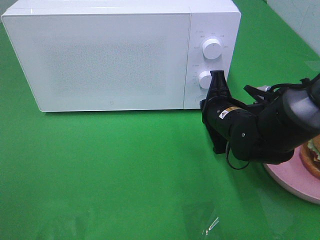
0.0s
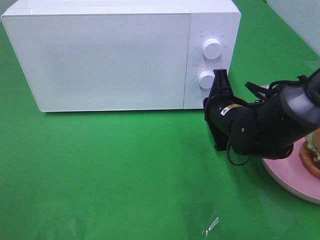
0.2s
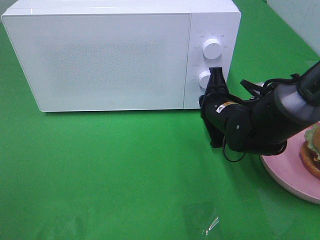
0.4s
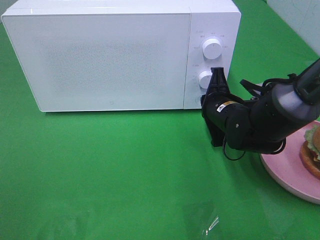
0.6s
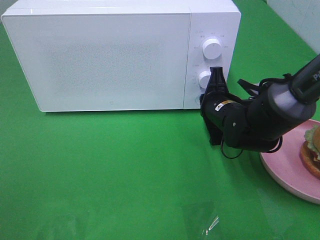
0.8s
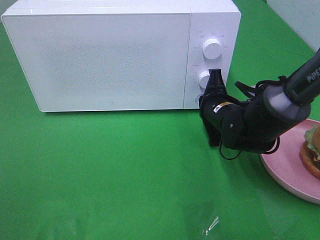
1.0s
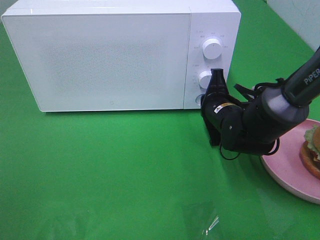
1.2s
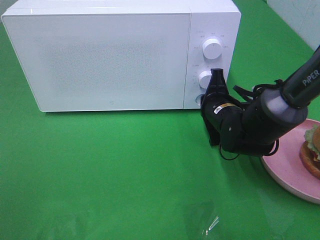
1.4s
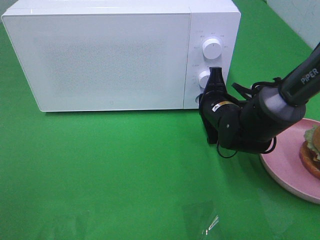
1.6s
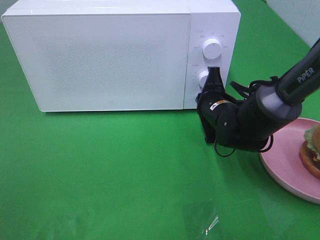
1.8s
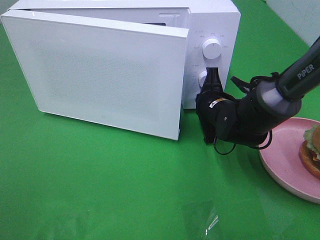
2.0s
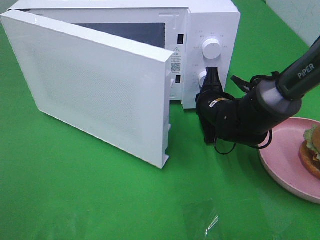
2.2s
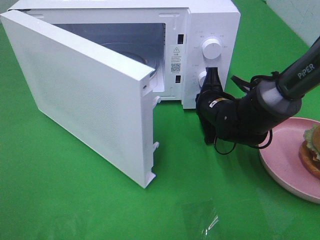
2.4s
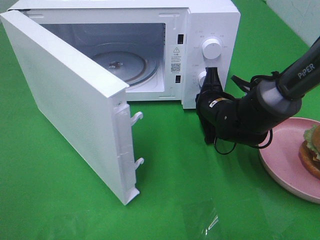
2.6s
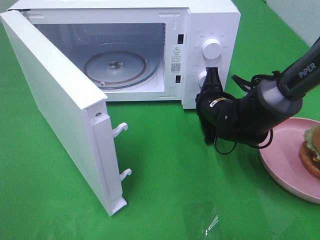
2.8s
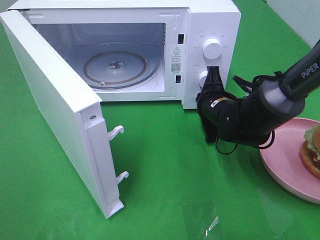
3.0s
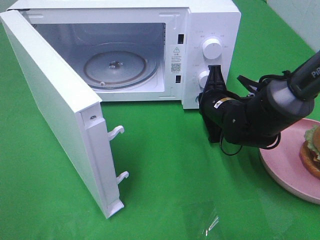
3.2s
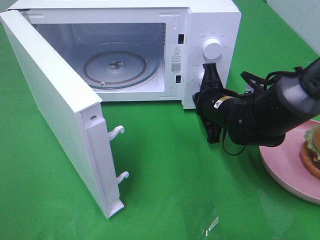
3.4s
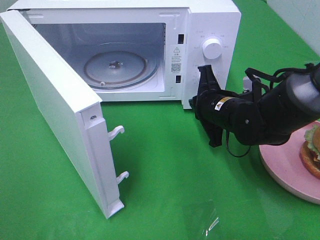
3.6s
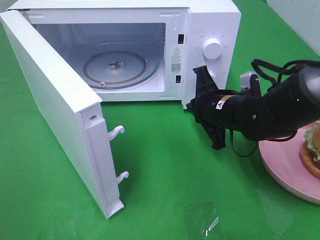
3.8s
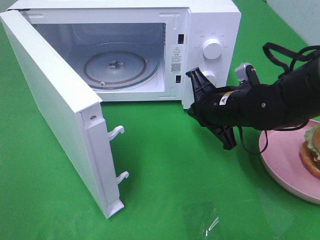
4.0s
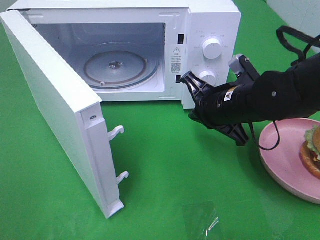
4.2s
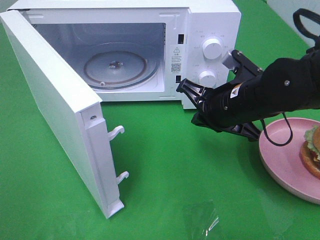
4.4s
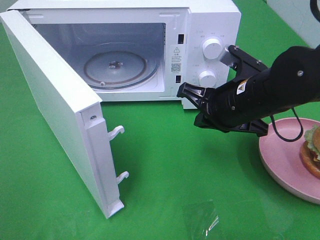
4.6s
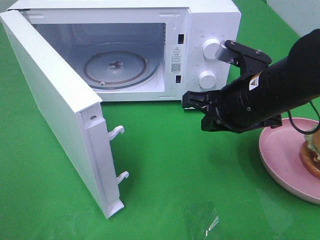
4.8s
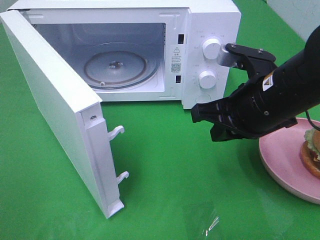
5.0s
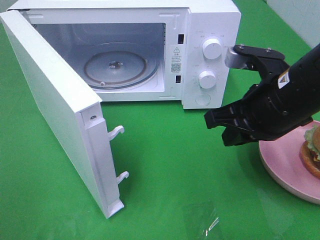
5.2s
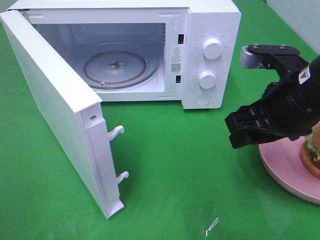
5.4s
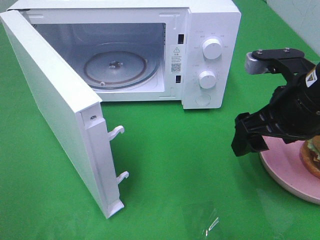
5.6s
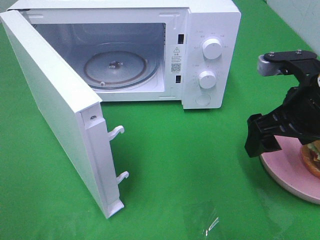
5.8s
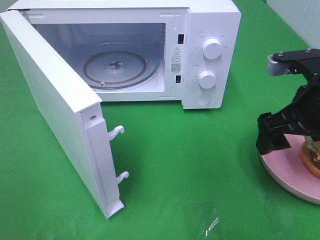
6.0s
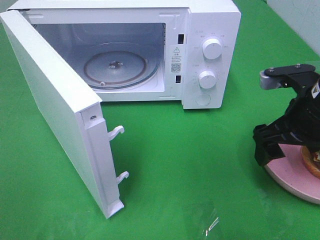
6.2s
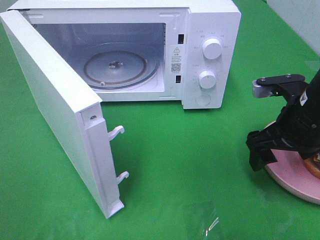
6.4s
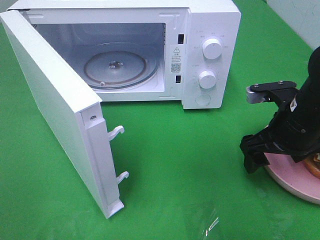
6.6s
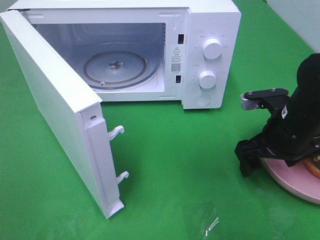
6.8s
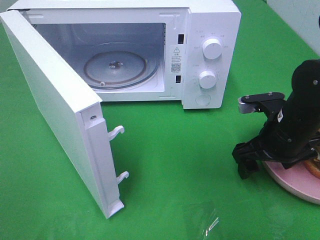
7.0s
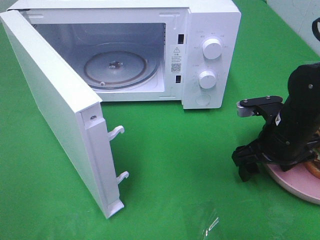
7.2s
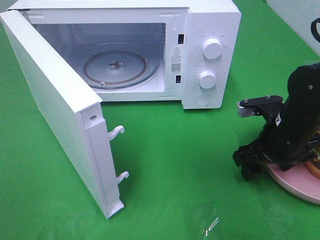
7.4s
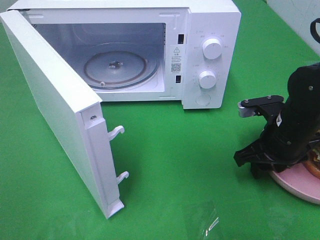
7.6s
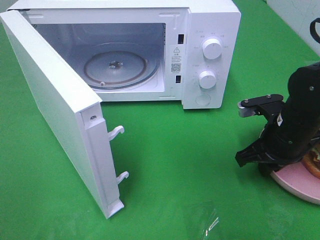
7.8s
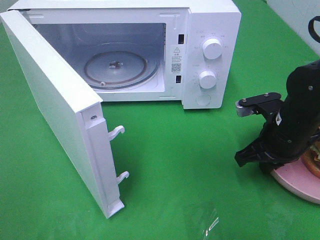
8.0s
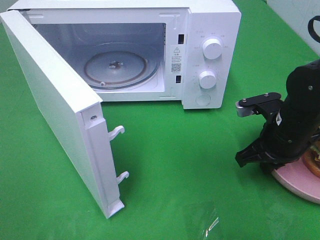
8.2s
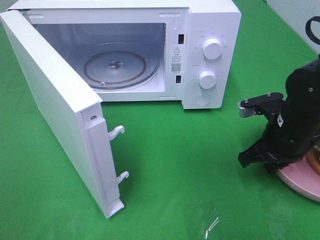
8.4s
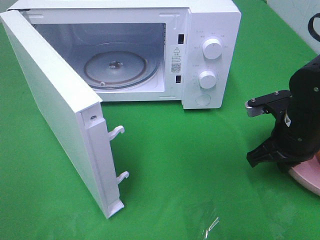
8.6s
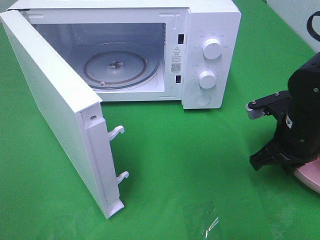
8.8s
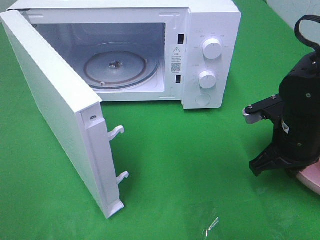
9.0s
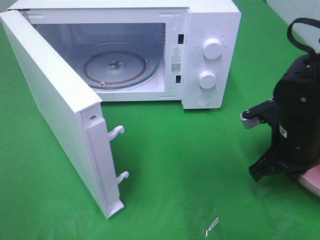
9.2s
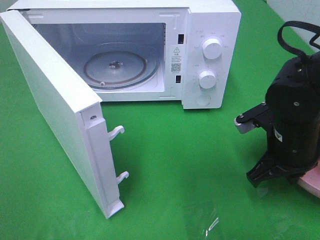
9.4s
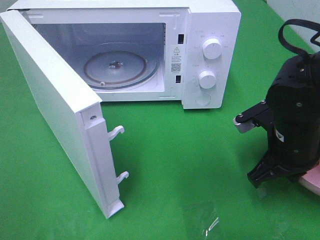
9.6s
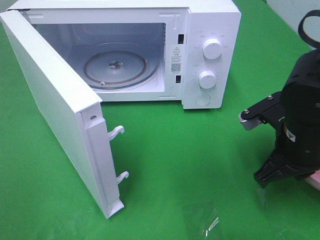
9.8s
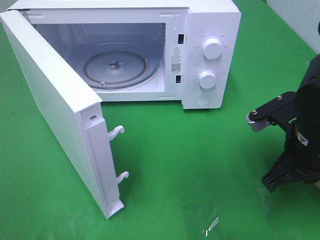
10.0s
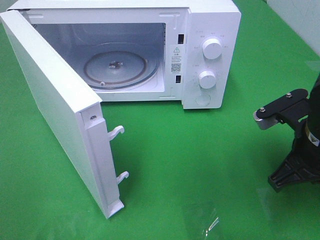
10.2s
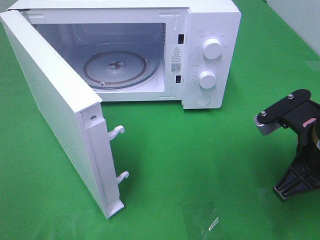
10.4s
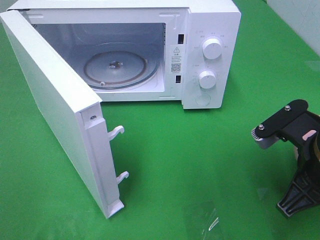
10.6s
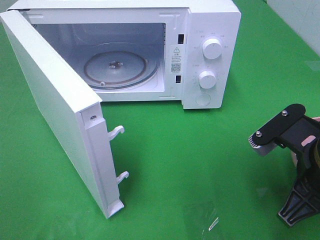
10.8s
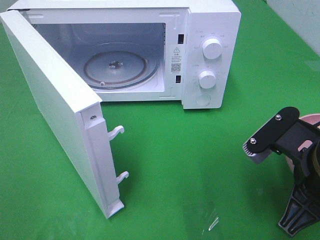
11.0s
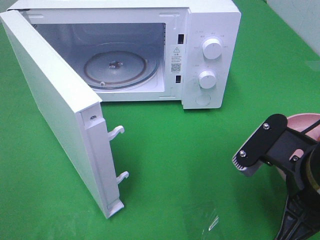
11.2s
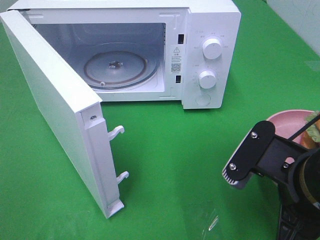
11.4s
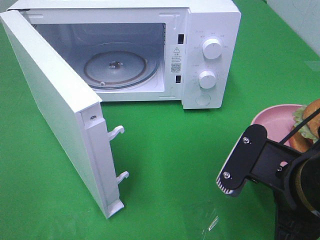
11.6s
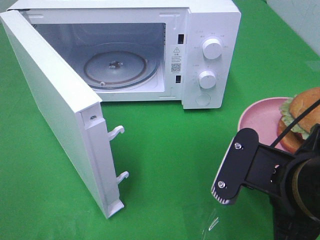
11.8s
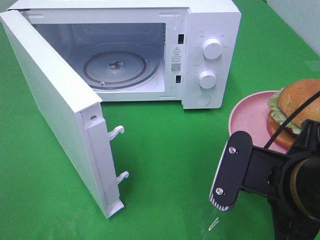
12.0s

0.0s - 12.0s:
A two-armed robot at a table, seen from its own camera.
Task of the whole recording: Heat the burger.
Step, 0.0s - 3.2s: Right hand: press the switch.
Step, 3.4s - 8.0s: Right hand: grab the plate with the hamburger.
0.0s - 1.6s: The grippers make only small movements.
3.0s - 4.4s: The right gripper shifts approximately 10 cm upward and backward.
4.4s - 6.0s: The right gripper moves to the right, about 10 cm, and opens up.
6.0s - 7.6s: The right gripper heads downward, covering roughly 10 cm, and closes its fingers.
7.6s - 9.0s: The right gripper closes up.
9.0s - 10.4s: The right gripper goes roughly 10 cm backward and upward.
10.4s - 12.0s: The right gripper is displaced backward and to the left by roughly 10 cm.

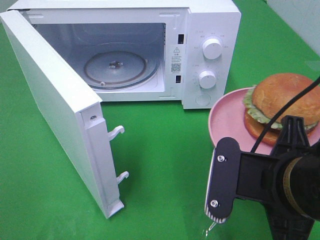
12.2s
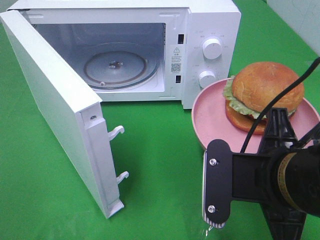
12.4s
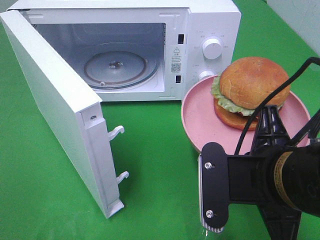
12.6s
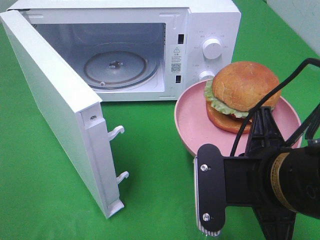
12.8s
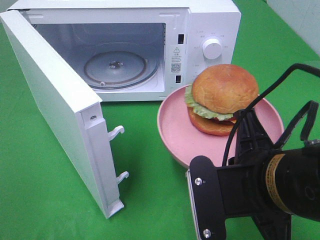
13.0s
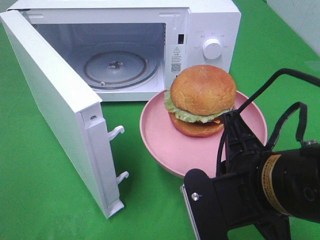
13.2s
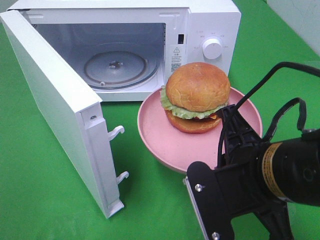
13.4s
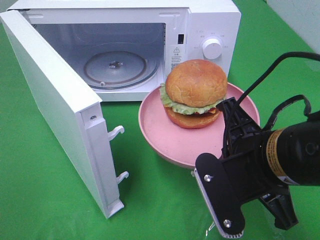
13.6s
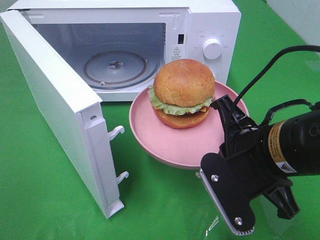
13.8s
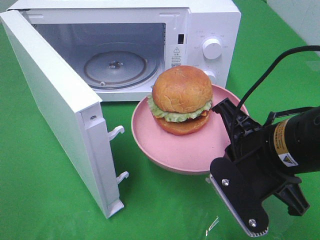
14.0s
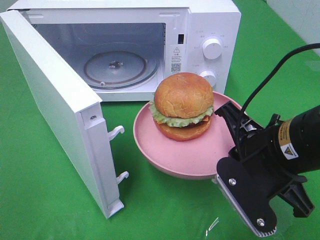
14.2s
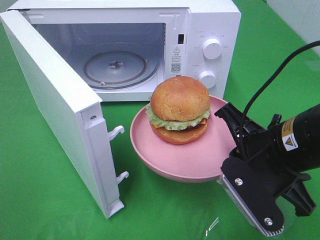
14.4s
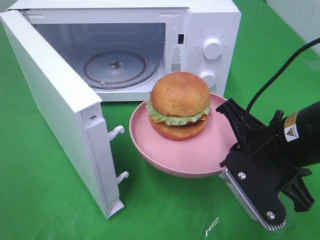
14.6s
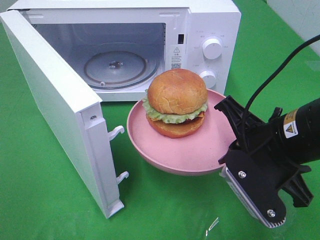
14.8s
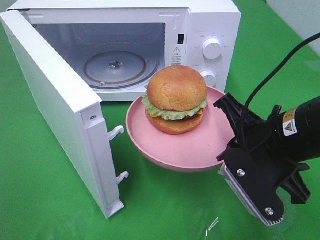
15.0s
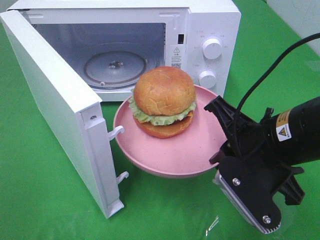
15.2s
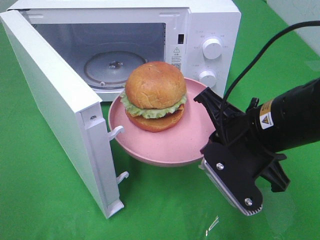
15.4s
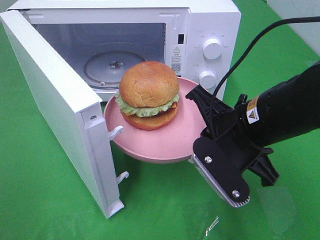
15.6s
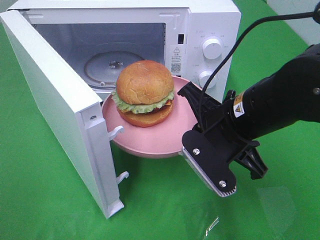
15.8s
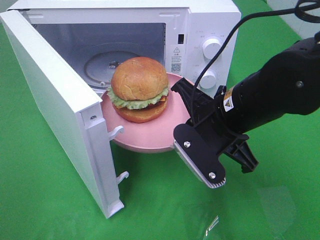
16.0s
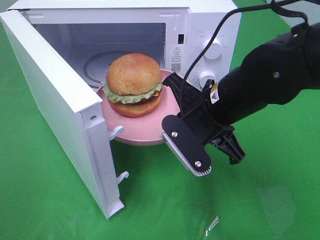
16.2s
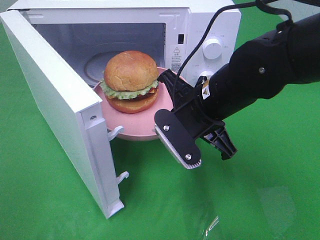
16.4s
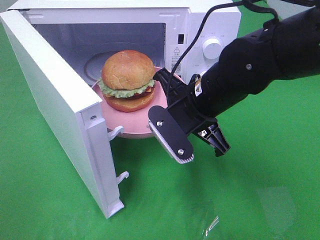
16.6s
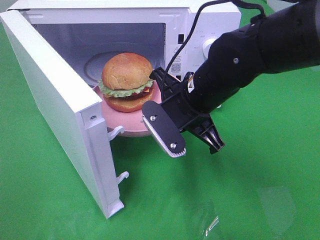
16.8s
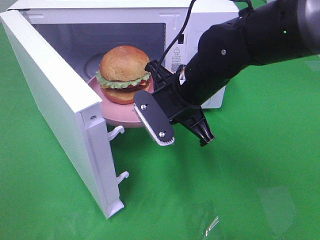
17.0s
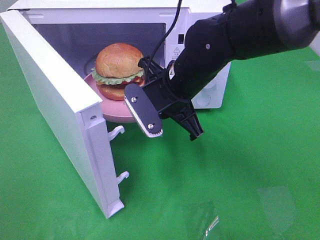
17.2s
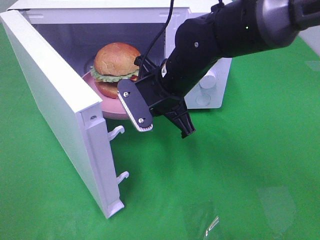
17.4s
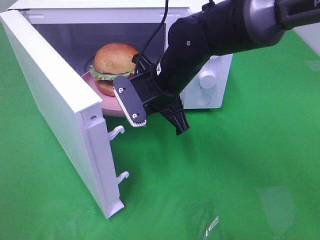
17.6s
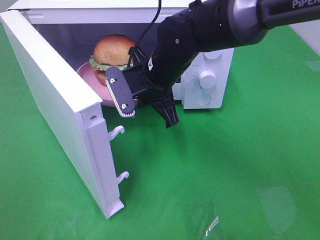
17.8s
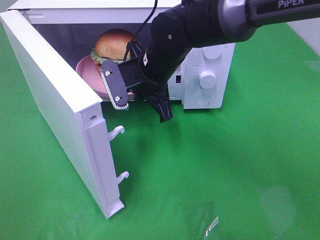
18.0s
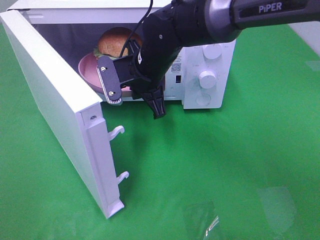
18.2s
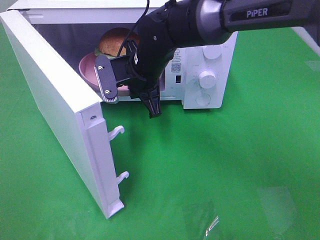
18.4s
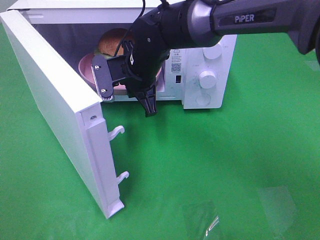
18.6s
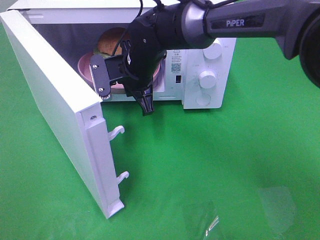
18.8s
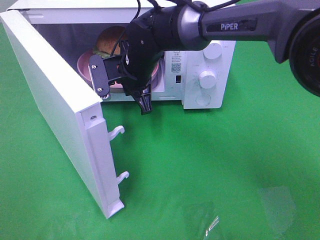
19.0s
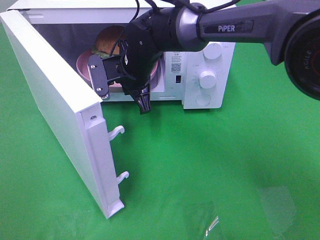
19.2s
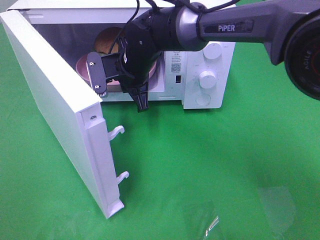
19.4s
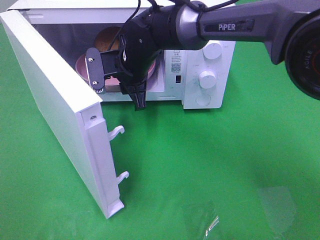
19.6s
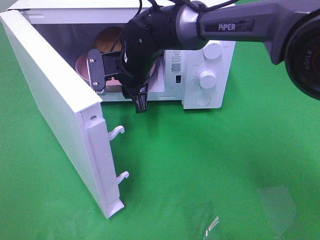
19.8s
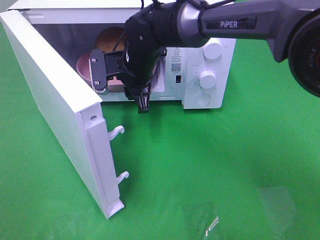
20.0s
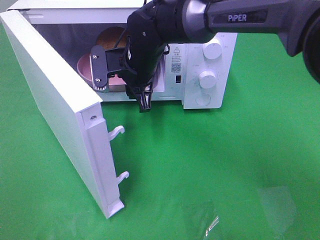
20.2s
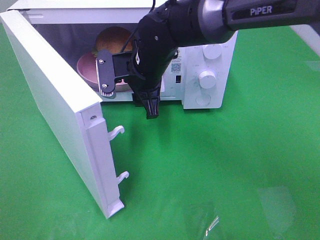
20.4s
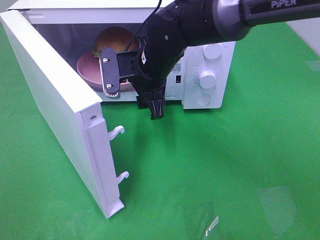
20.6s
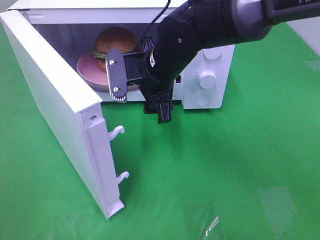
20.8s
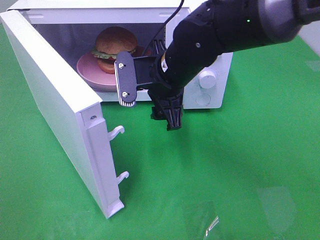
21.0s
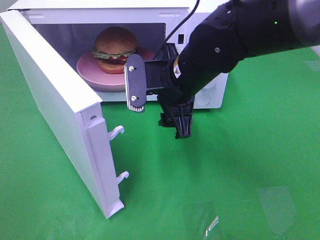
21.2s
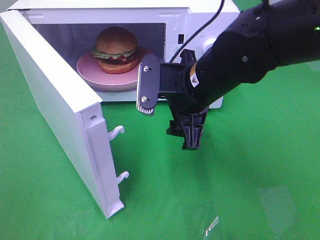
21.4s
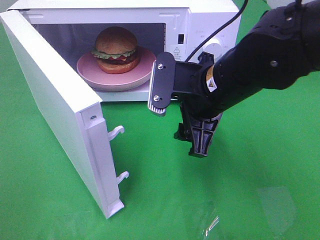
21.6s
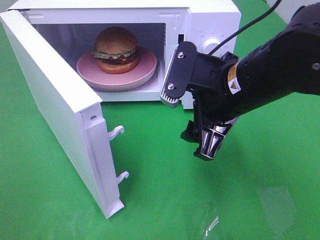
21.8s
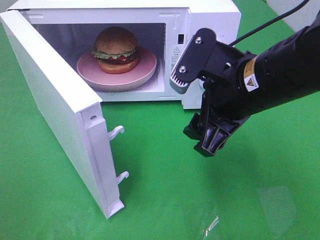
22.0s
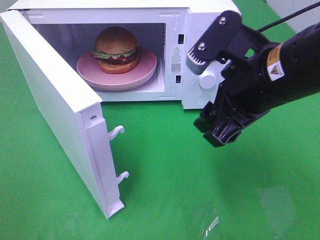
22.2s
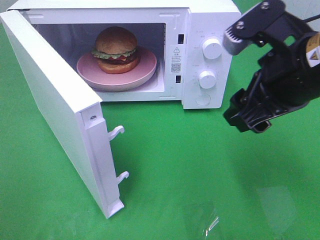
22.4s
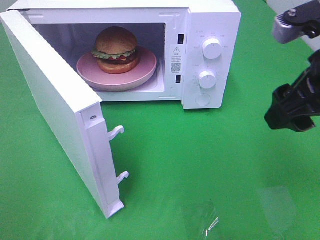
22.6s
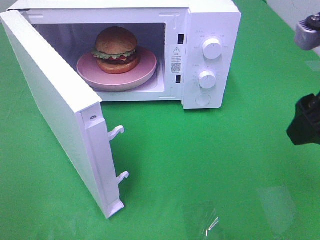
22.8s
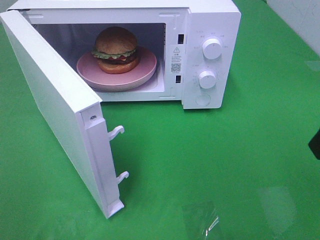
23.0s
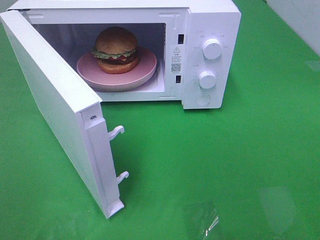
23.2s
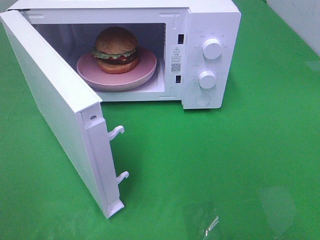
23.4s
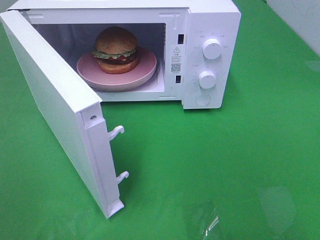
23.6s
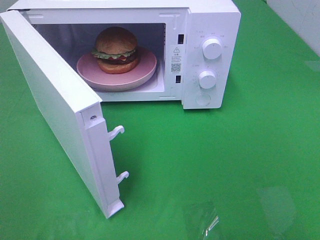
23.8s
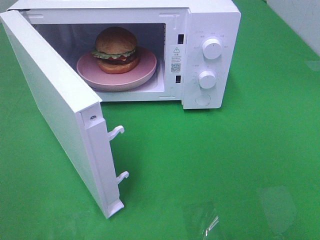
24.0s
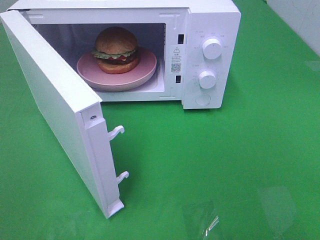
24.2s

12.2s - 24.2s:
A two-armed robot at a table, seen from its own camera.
Task of the whole recording: Heat the burger.
Step, 12.2s - 19.4s: Right hand: place the plate in the microwave.
13.8s - 15.2s: There are only small adjustments of the grippers.
15.2s - 16.6s: The right gripper travels forward and to the left by approximately 10 cm.
16.6s - 18.2s: The right gripper goes roughly 15 cm forward and to the left.
18.2s - 19.8s: The right gripper opens.
19.8s - 21.2s: The right gripper is displaced backward and to the right by roughly 15 cm.
21.2s - 22.6s: The right gripper shifts roughly 20 cm to the right, backward and upward.
22.6s - 24.2s: The right gripper travels backward and to the right by approximately 20 cm.
